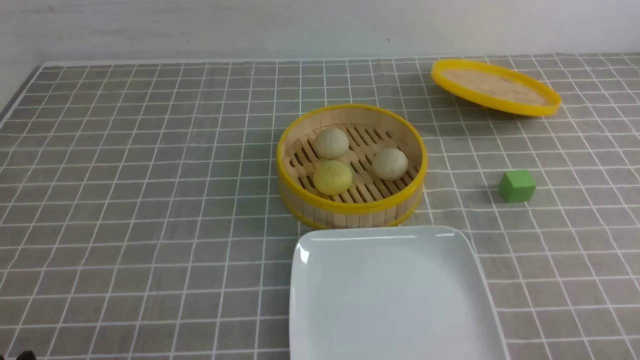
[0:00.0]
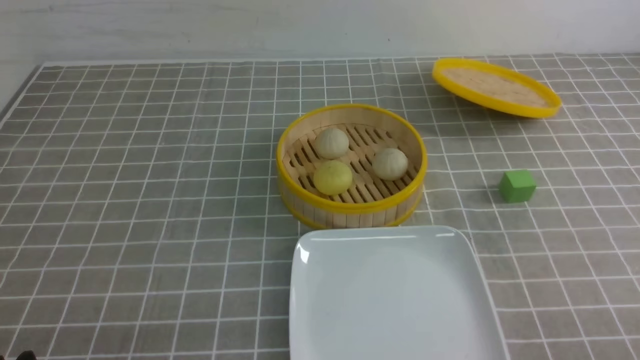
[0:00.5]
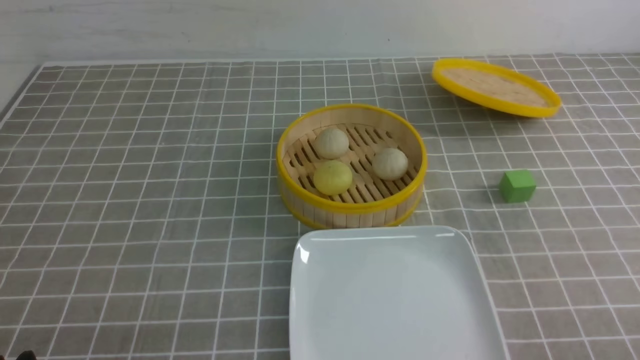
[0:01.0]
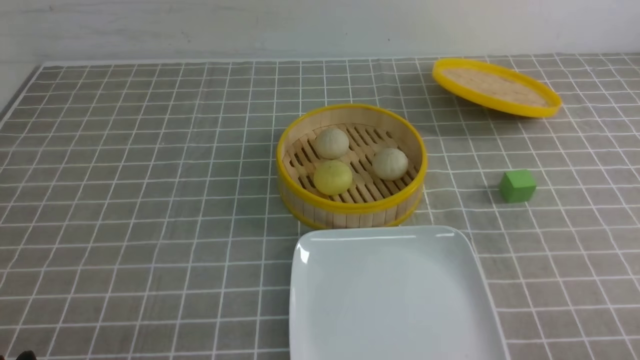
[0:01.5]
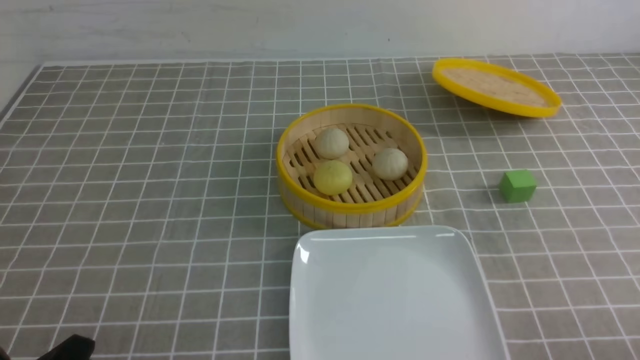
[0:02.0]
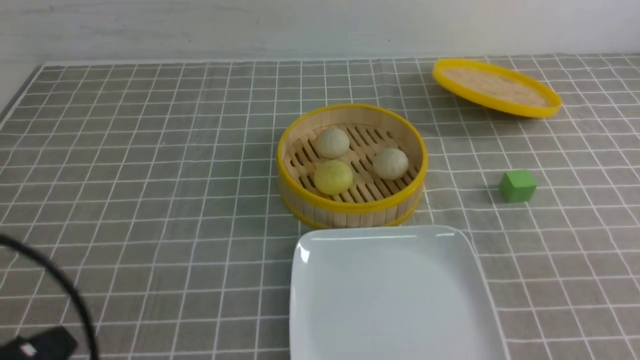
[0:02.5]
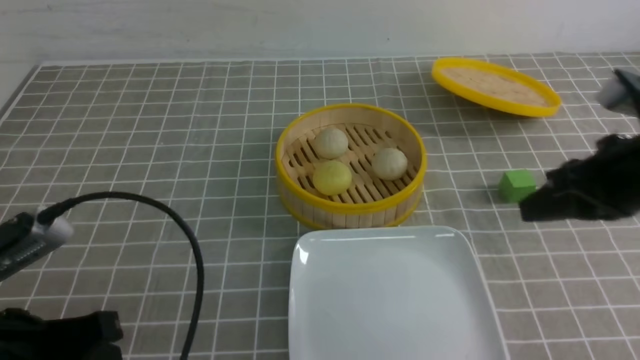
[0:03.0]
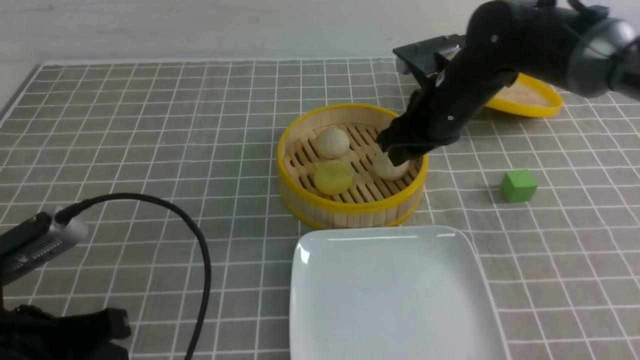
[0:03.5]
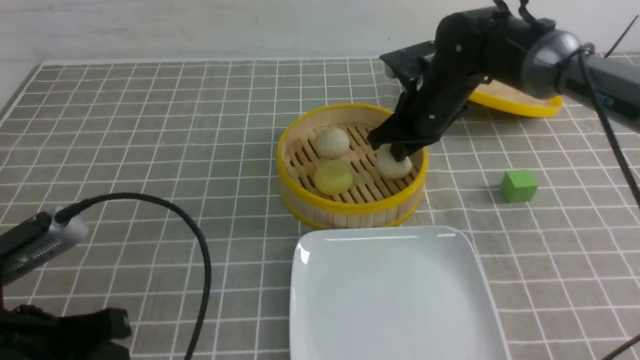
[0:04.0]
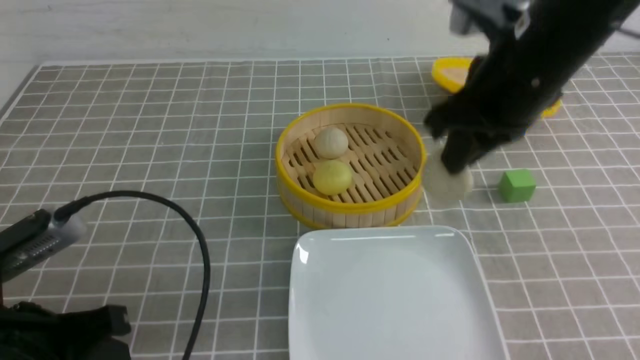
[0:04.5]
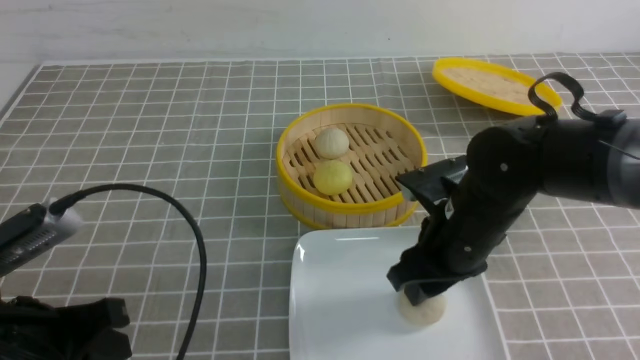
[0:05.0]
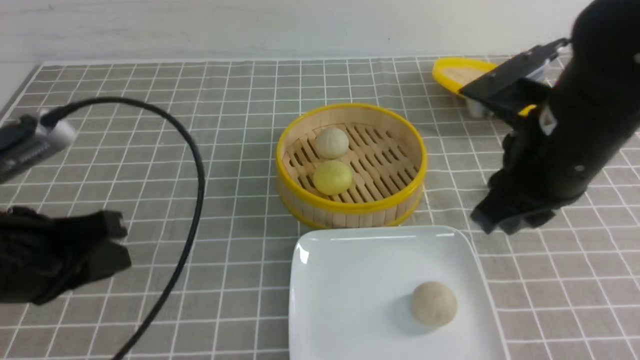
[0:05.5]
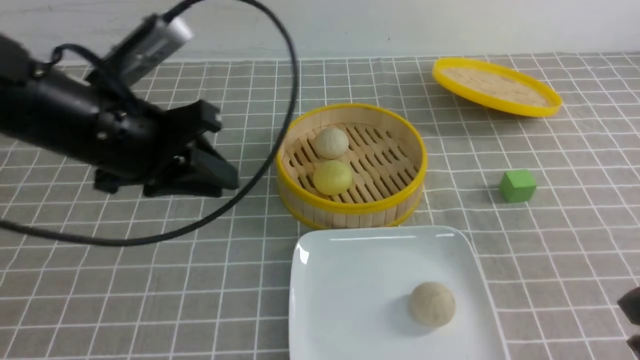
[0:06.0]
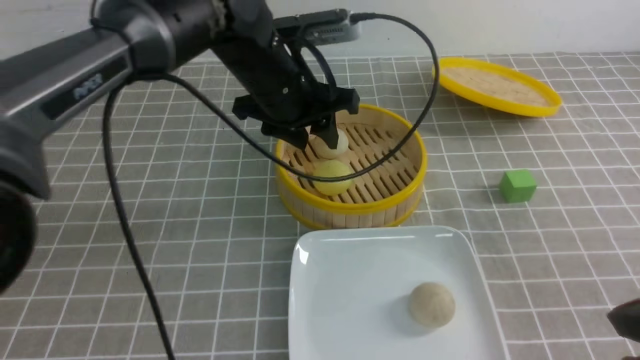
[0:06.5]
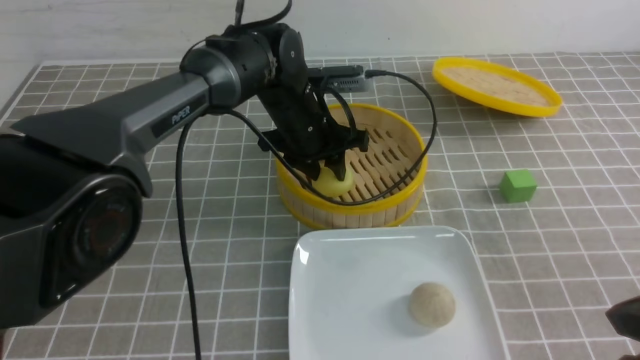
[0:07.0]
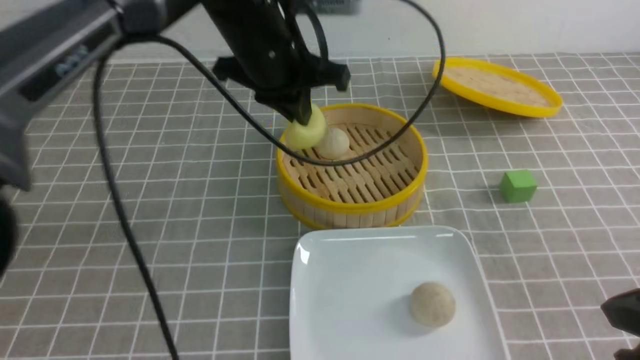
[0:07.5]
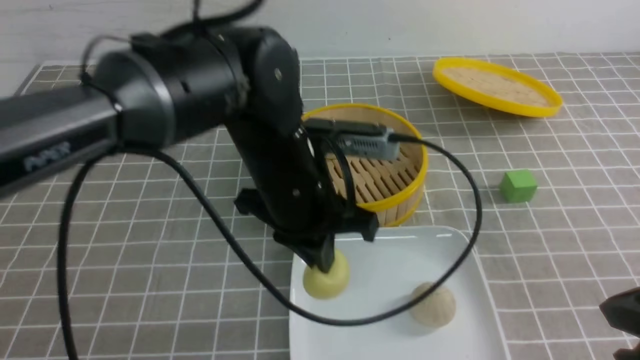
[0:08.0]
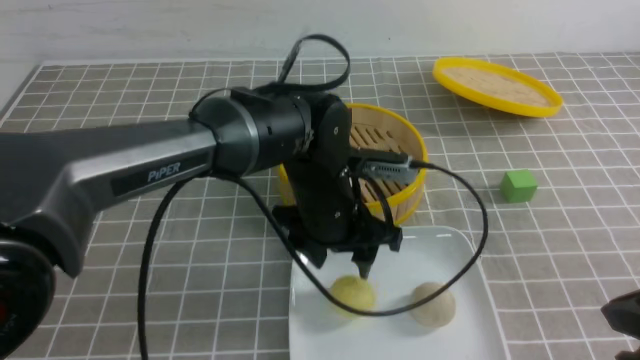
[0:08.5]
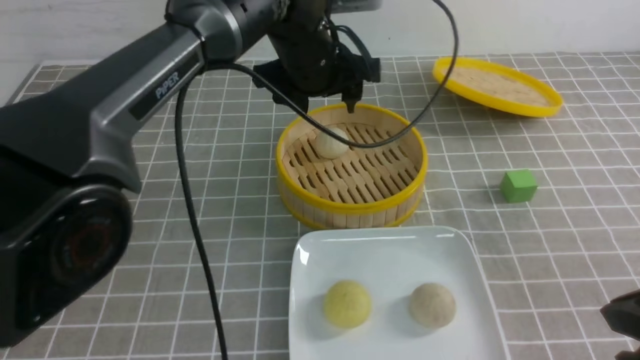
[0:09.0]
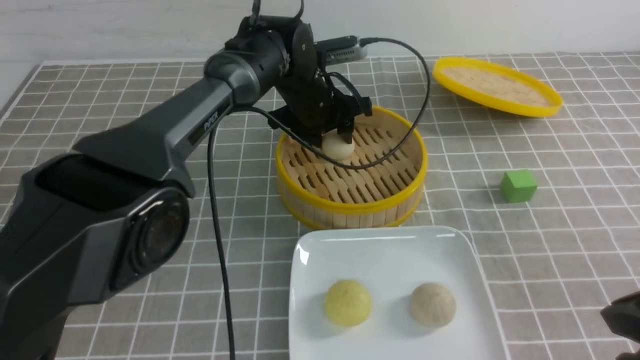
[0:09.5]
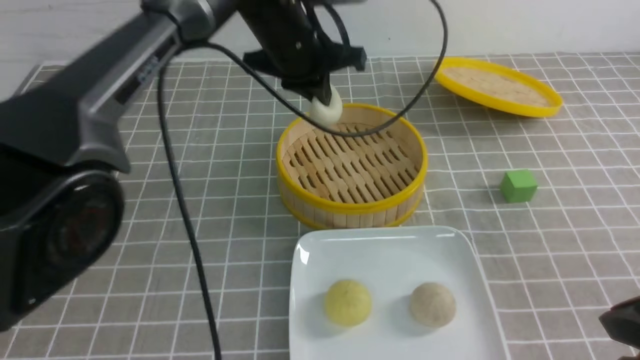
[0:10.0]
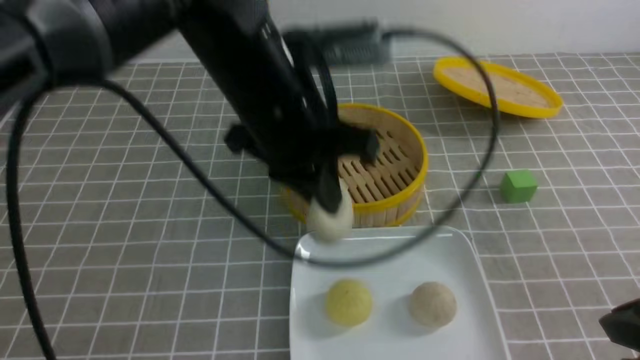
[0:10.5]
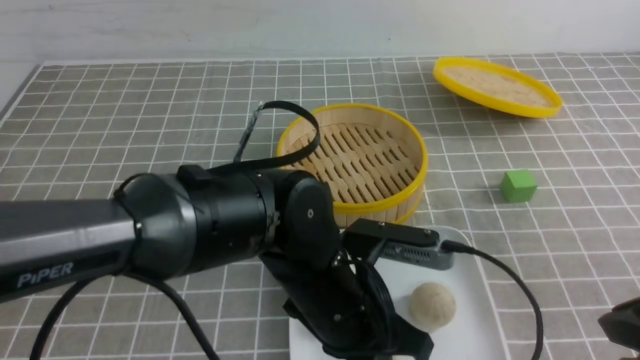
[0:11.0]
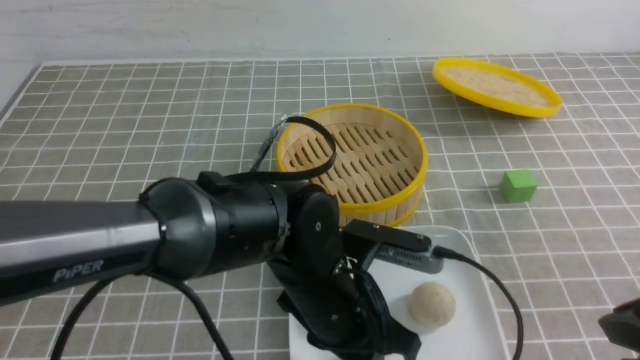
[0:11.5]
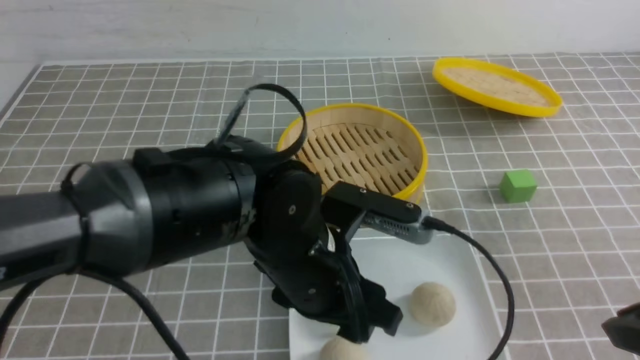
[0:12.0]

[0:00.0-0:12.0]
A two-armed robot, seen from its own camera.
Step, 0:00.0 to 0:04.0: use the right arm to grab the steamed stuffed bun that is closest to it.
Step, 0:04.5 to 0:05.0: use the right arm to put the steamed stuffed bun into the plate.
Step, 0:05.5 to 0:07.0: use the left arm to grab the steamed stuffed bun that is closest to it.
Step, 0:07.5 to 0:08.0: use the left arm to put the steamed stuffed bun into the plate.
Step, 0:08.5 to 0:09.5: use the left arm to grab the steamed stuffed bun that is closest to it.
Step, 0:10.0 to 0:11.5: use the left arm to put the steamed stuffed bun into the plate.
0:02.0 to 0:04.0: The left gripper goes some 10 cm forward and upward. The right gripper shifts about 40 cm forward and to the left, and closes its fingers.
0:04.0 to 0:06.0: The left gripper goes some 20 cm forward, upward and to the right, while the right gripper heads backward, covering roughly 30 cm, and opens, then closes again.
0:06.0 to 0:08.0: The left gripper travels to the right and downward by about 15 cm, and travels forward and back again, about 15 cm each way.
0:08.0 to 0:10.0: The left gripper moves forward and upward, about 15 cm, and opens and closes again.
0:10.0 to 0:12.0: The left gripper shifts roughly 25 cm backward and downward, and opens.

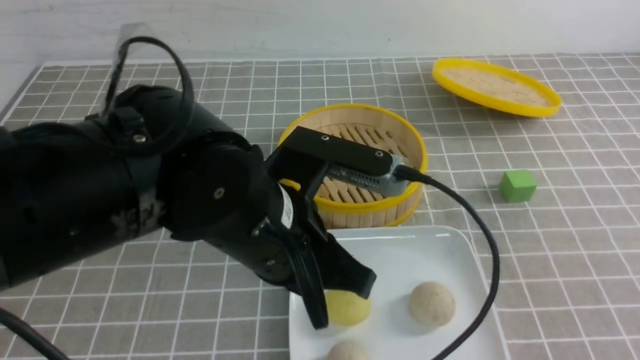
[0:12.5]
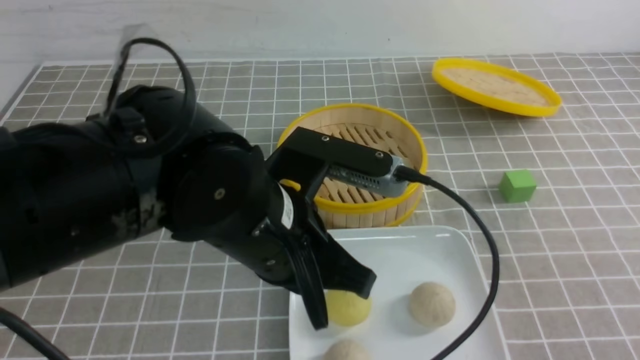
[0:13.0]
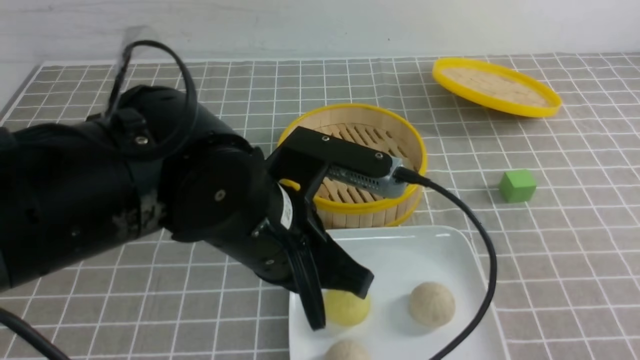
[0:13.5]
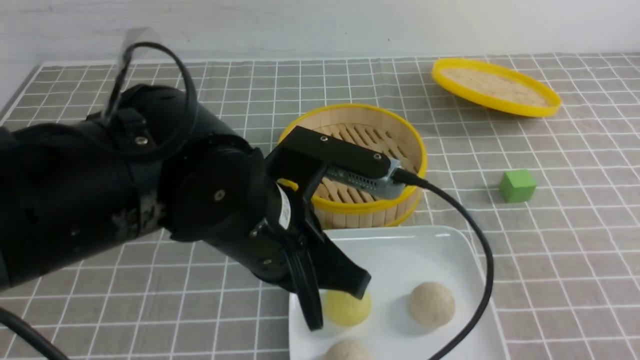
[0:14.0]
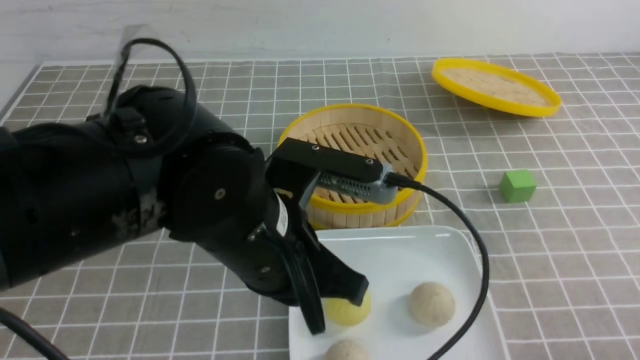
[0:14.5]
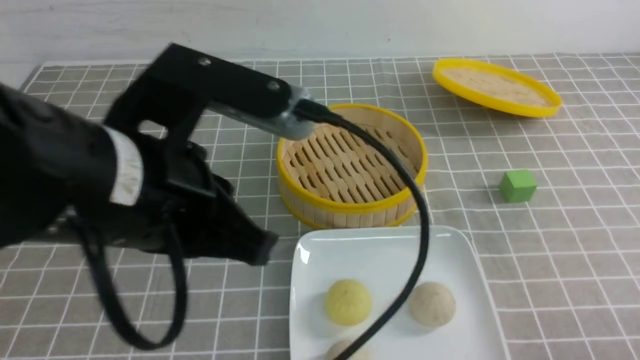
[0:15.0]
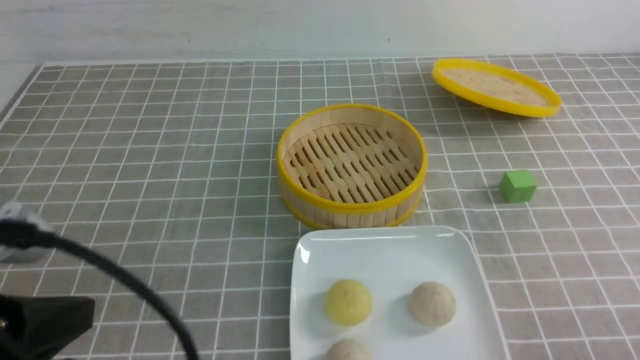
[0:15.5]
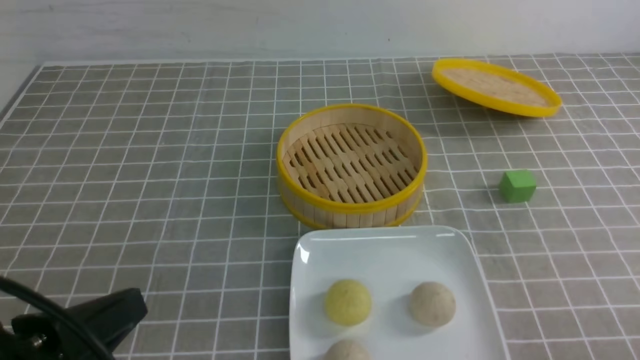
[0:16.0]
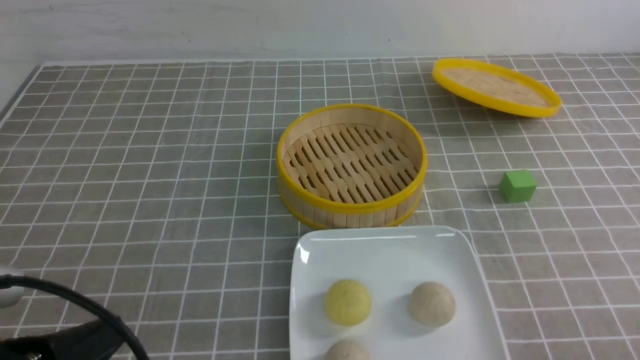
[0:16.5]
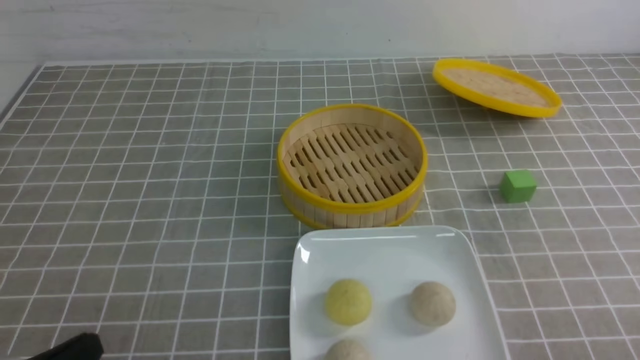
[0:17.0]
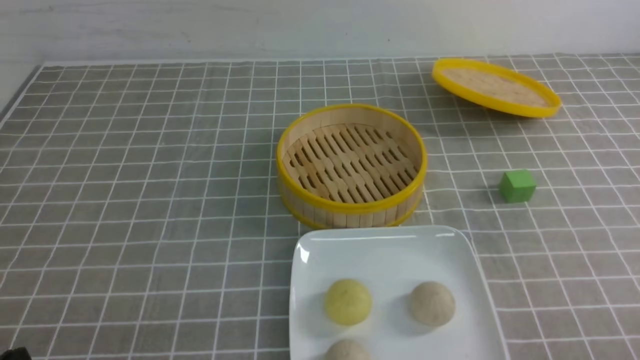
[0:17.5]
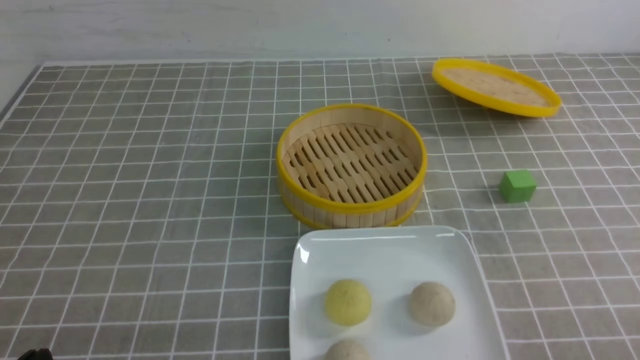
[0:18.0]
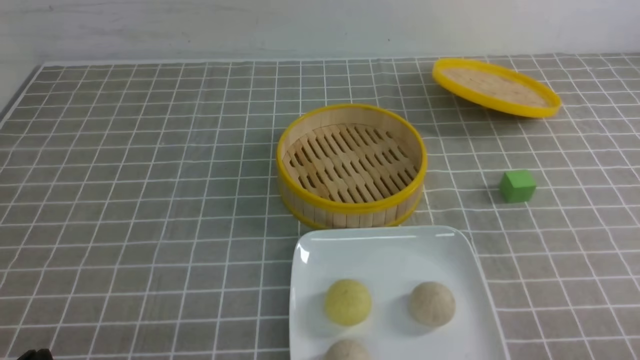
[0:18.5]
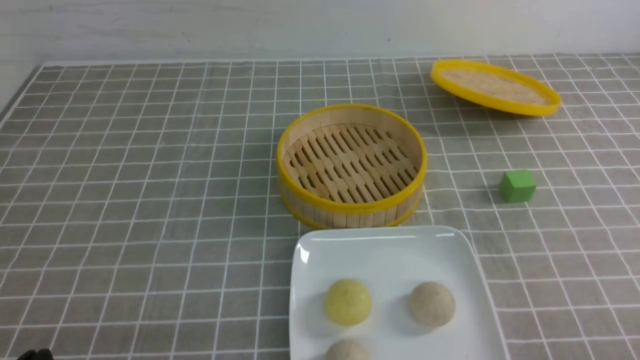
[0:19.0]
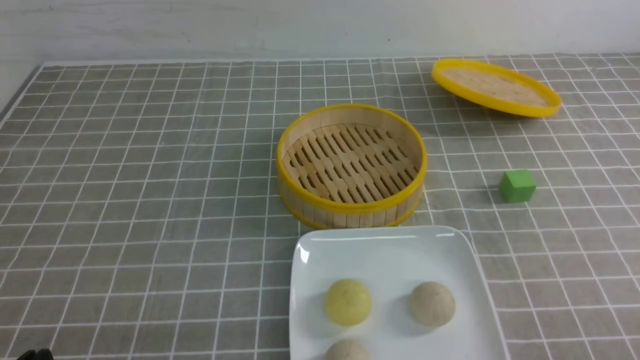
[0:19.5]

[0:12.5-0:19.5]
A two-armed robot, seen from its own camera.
0:12.5 to 0:14.5: The right gripper goes approximately 15 cm downward.
0:14.5 to 0:16.0: The left gripper heads to the left and backward, covering approximately 20 cm.
0:16.0 to 0:17.5: The left gripper is displaced downward and to the left by roughly 10 cm.
0:17.5 to 0:19.5: Both grippers stay about where they are.
